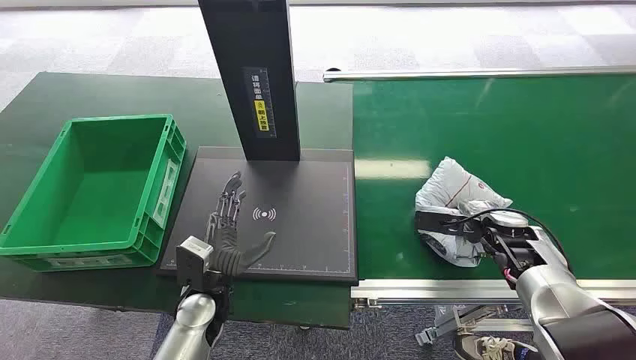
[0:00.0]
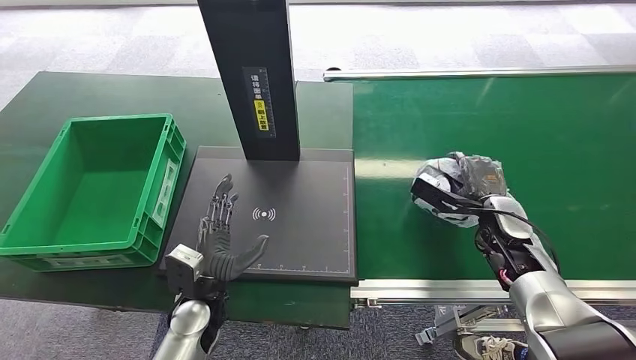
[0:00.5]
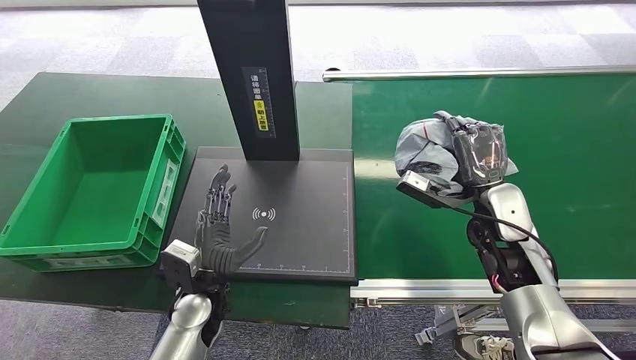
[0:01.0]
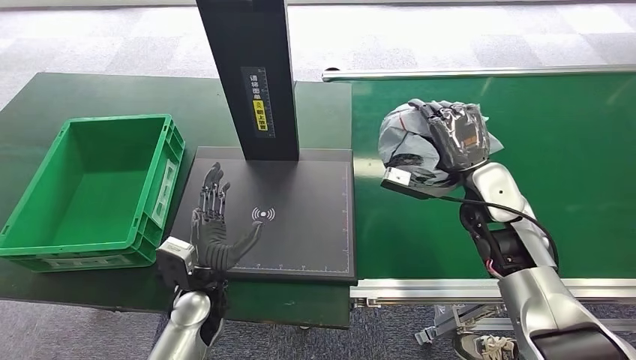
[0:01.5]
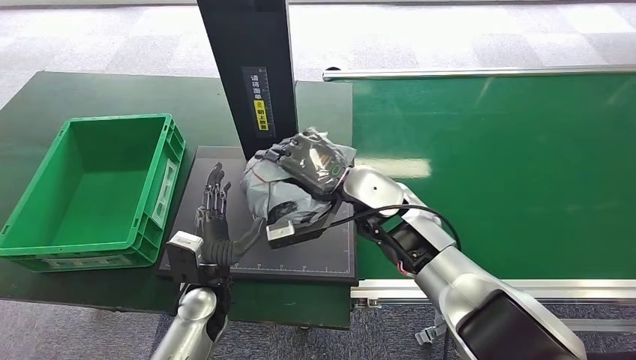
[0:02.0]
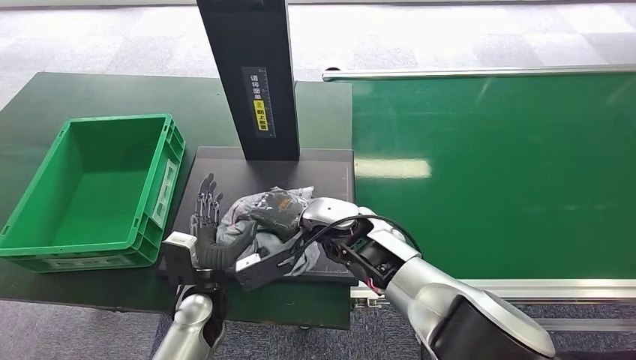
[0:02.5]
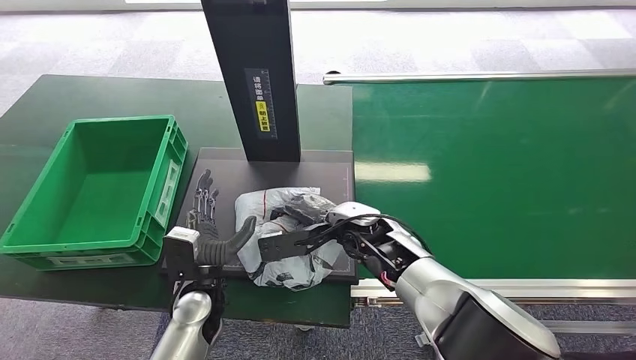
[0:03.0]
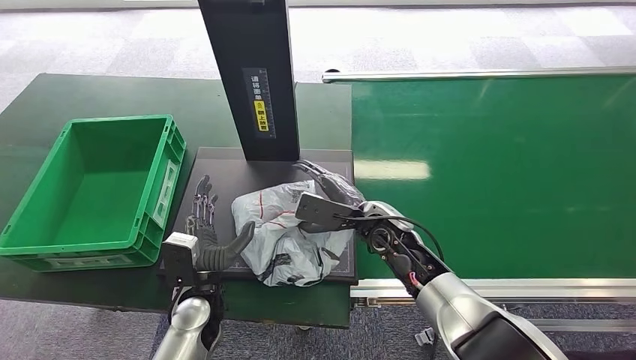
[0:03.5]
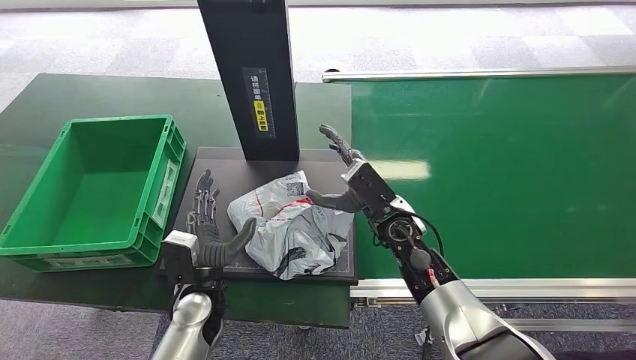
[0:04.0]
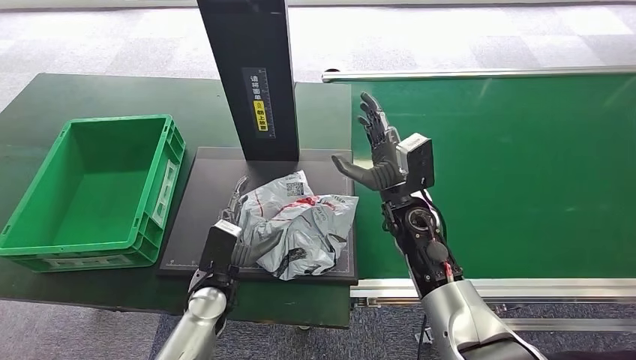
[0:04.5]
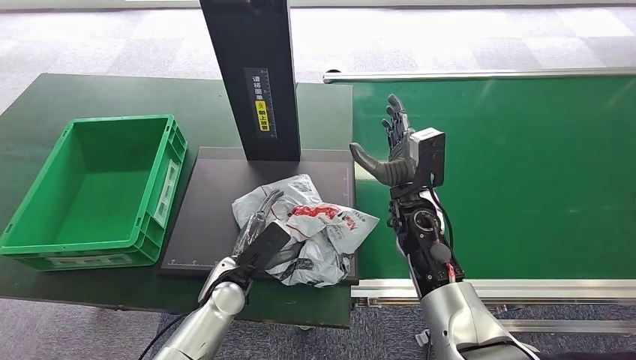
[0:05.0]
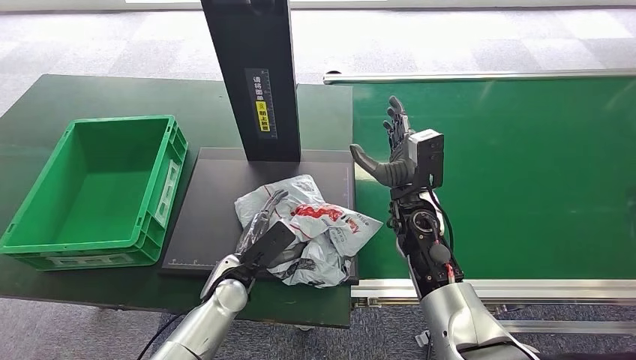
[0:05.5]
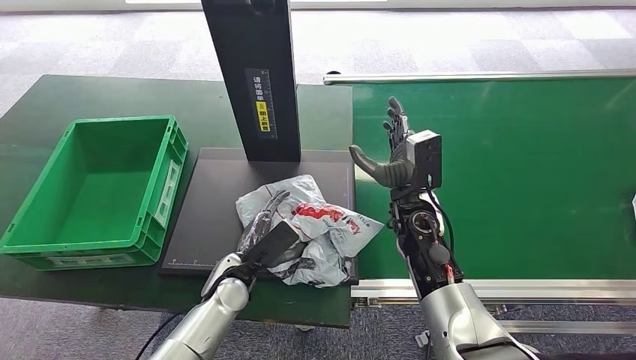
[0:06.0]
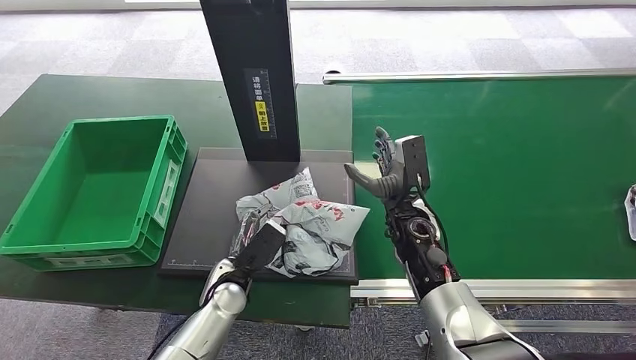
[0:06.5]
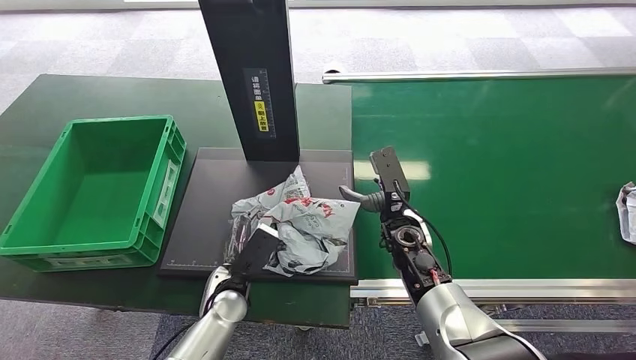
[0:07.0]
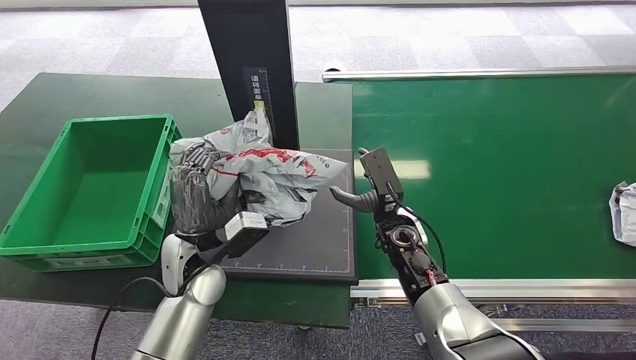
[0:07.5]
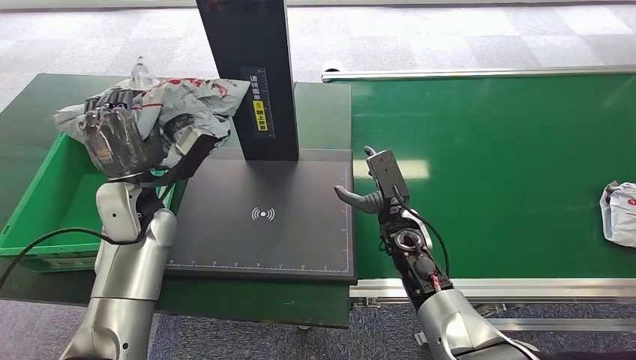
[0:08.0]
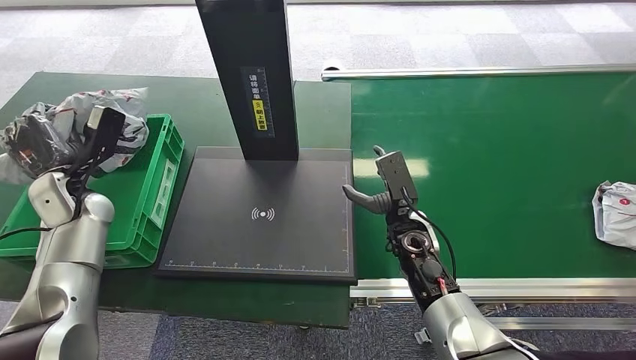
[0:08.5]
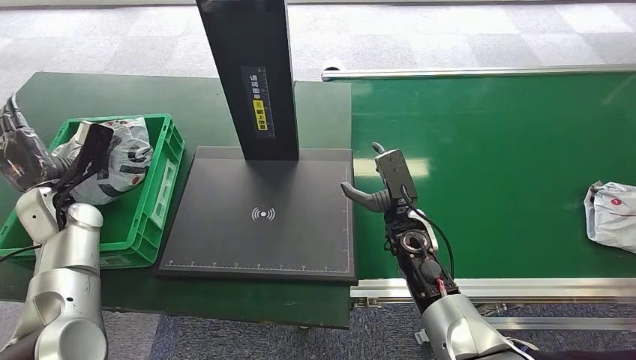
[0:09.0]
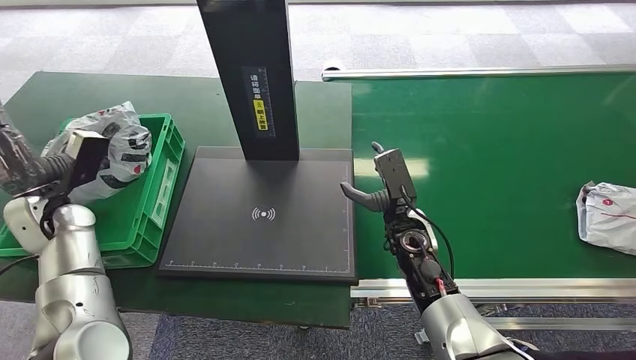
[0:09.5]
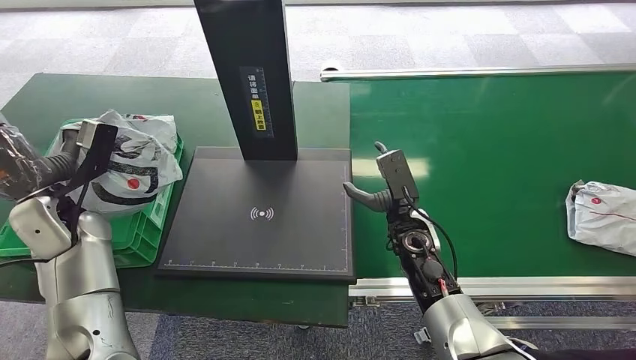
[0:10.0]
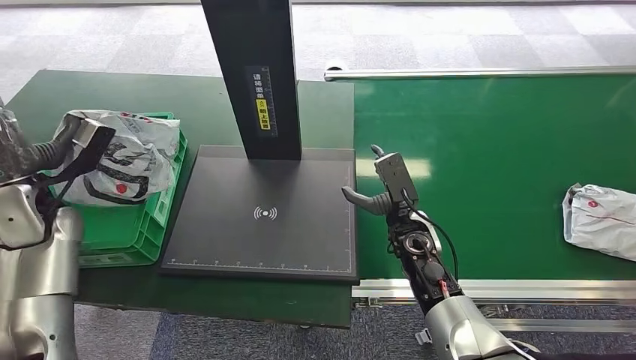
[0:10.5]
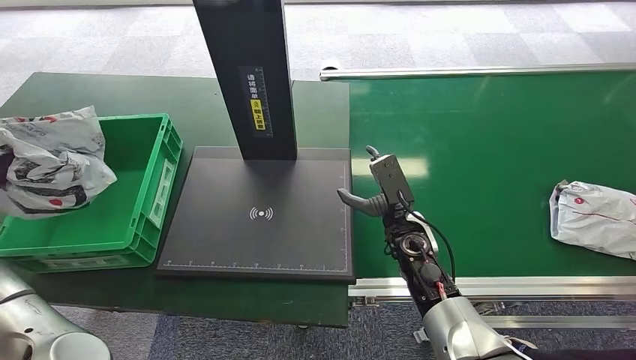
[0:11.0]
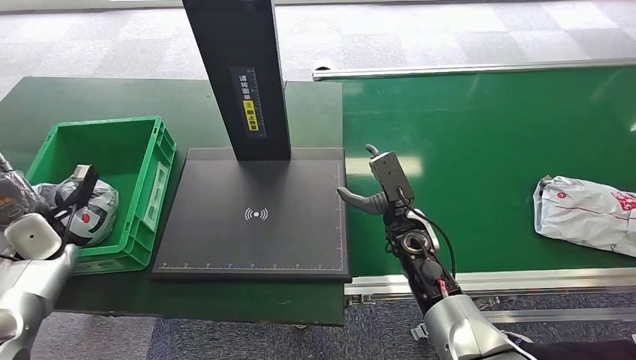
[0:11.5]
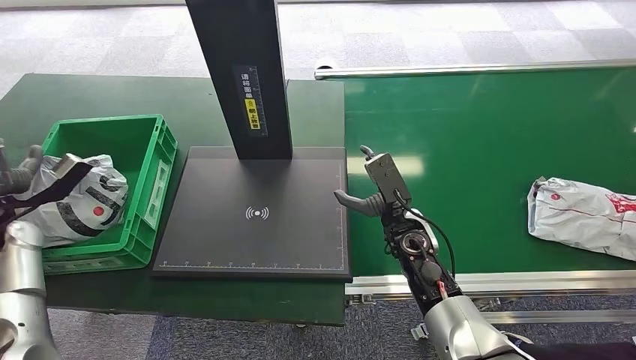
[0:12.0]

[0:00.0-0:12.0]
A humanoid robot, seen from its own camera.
Step, 0:00.0 to 0:01.0: Pick up the package from the conveyor belt.
Step, 0:01.5 to 0:04.0: Place the package onto the inbound machine.
Step, 0:05.0 to 0:07.5: Pick up the package from the inbound machine.
Step, 0:08.0 to 0:12.0: Place the package into the parcel locker.
0:02.0 to 0:04.0: The right hand goes about 10 cm downward.

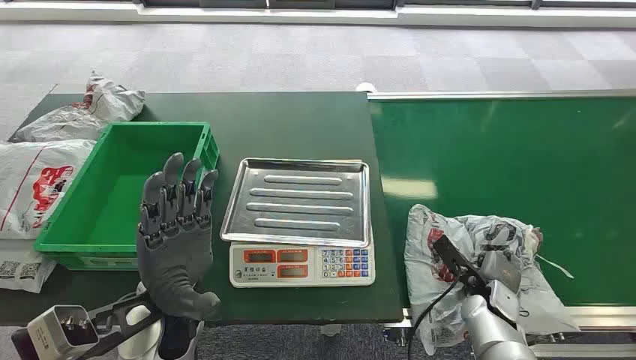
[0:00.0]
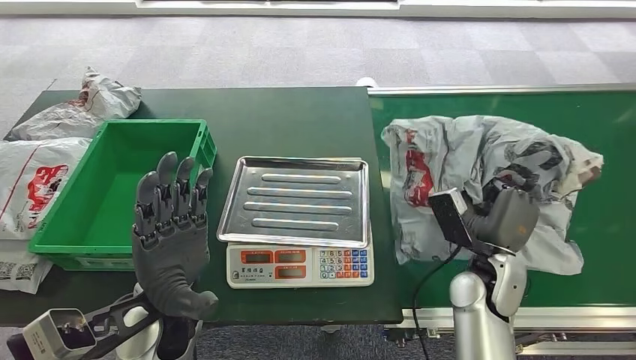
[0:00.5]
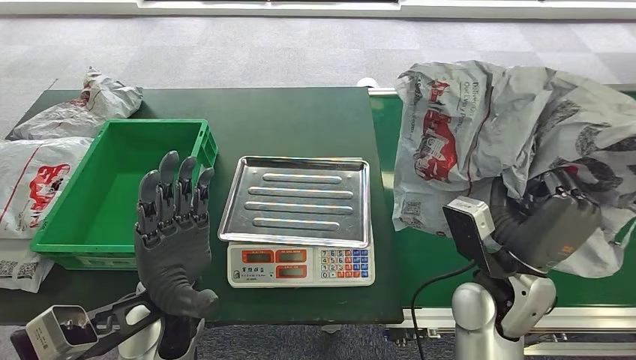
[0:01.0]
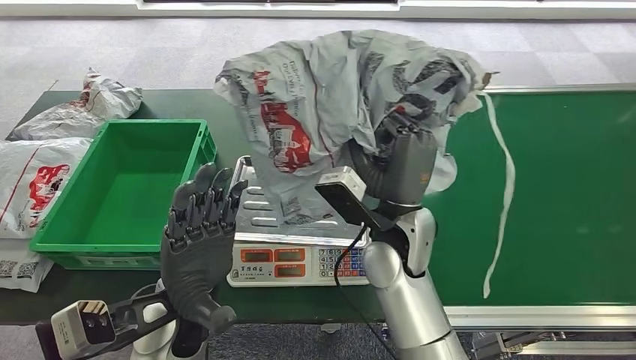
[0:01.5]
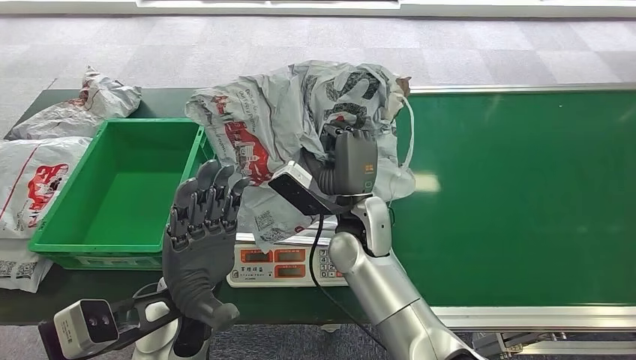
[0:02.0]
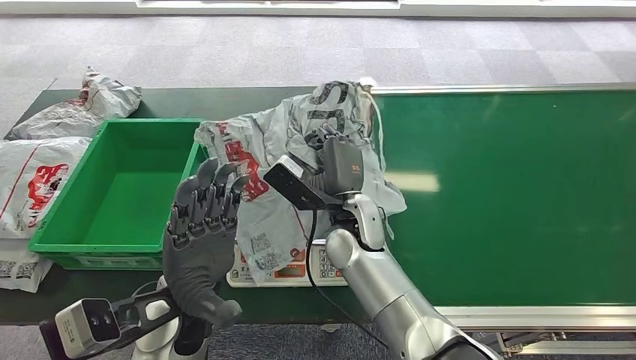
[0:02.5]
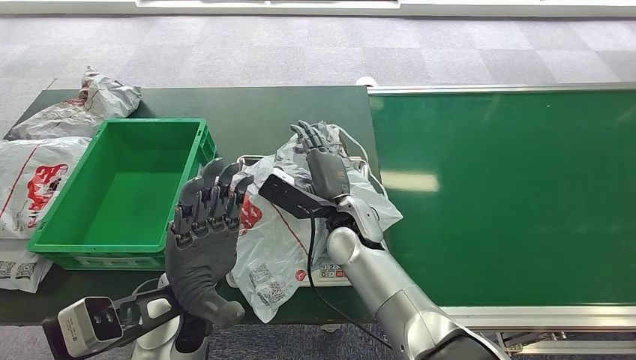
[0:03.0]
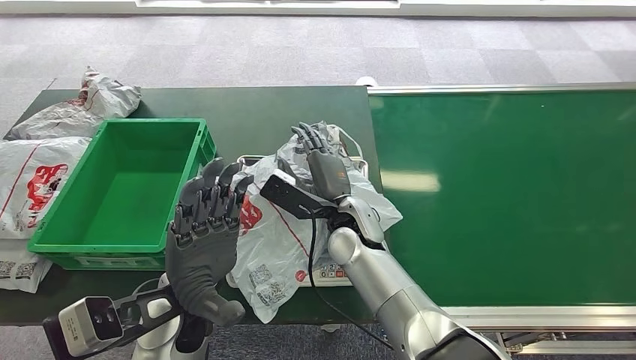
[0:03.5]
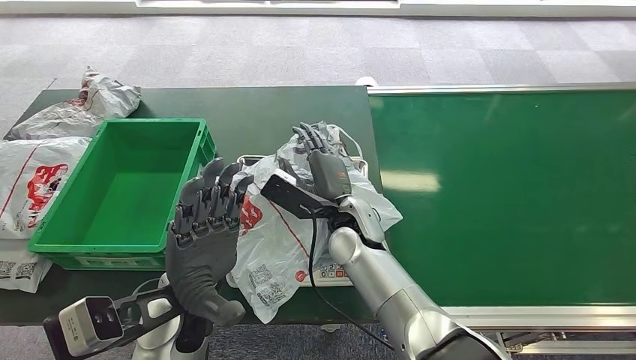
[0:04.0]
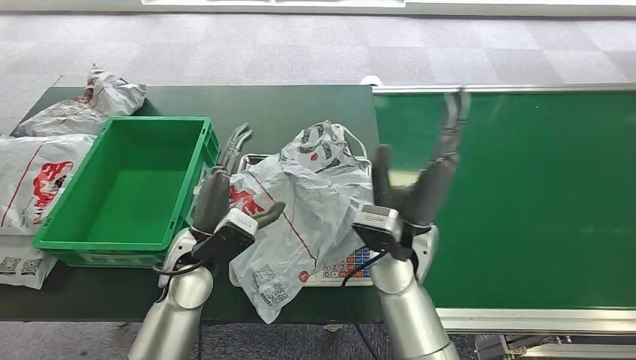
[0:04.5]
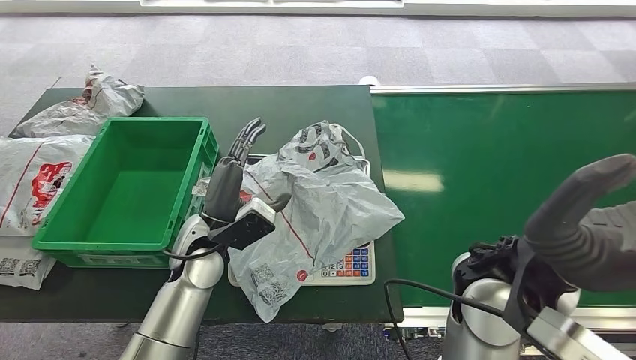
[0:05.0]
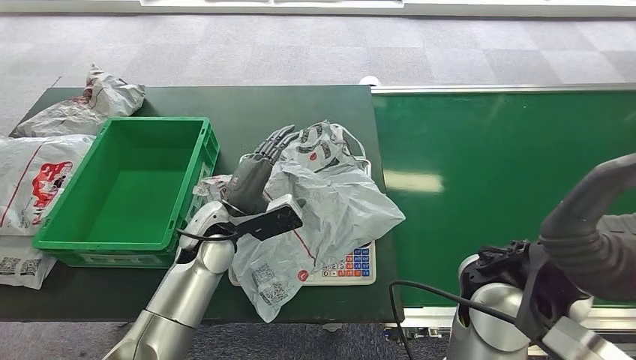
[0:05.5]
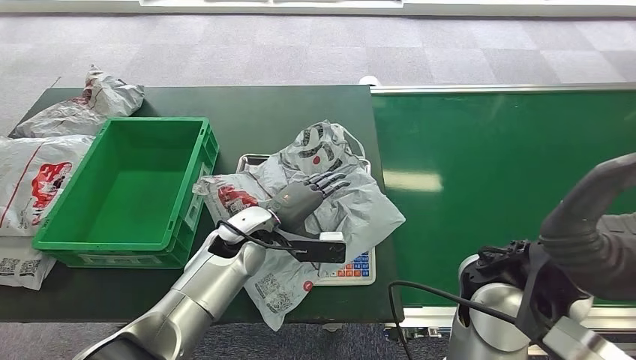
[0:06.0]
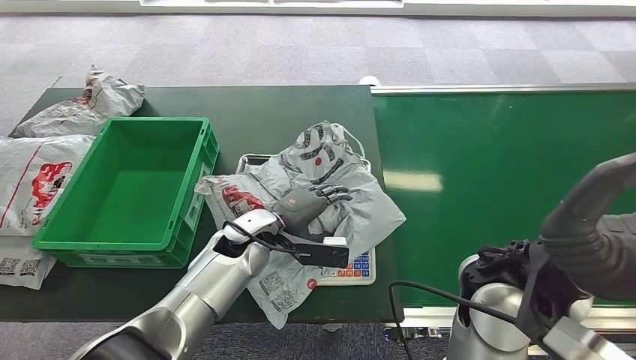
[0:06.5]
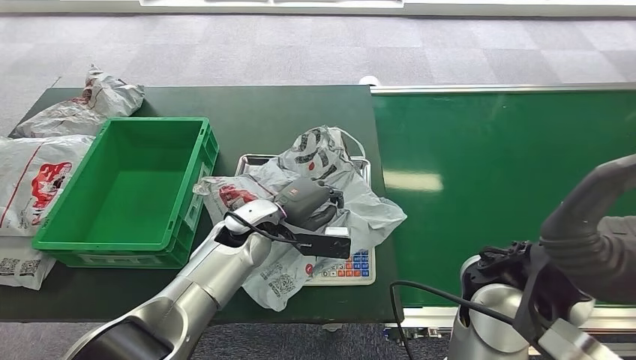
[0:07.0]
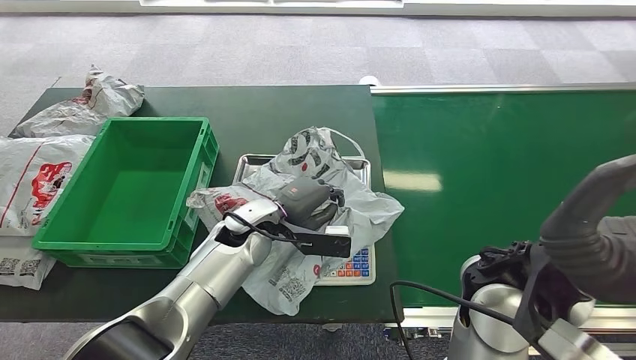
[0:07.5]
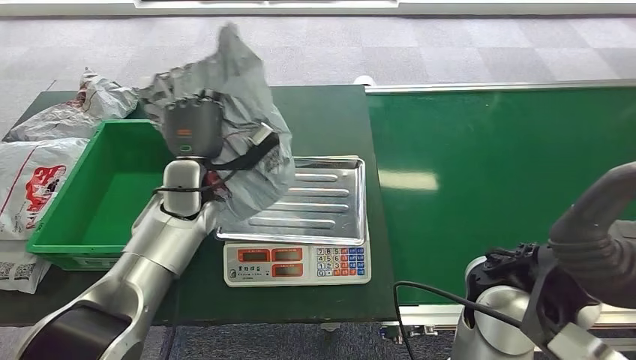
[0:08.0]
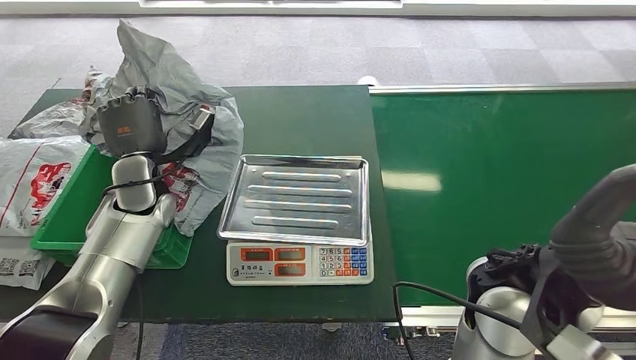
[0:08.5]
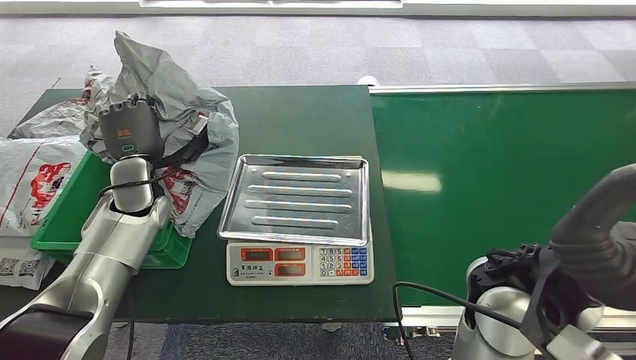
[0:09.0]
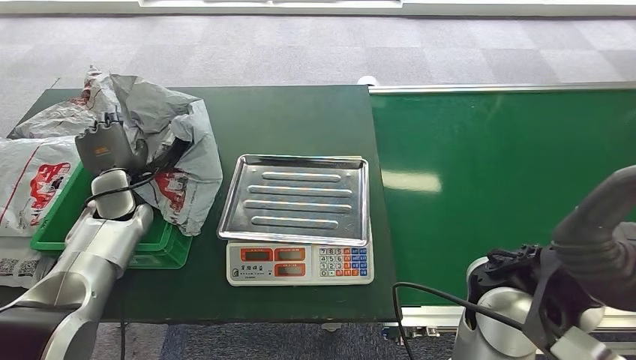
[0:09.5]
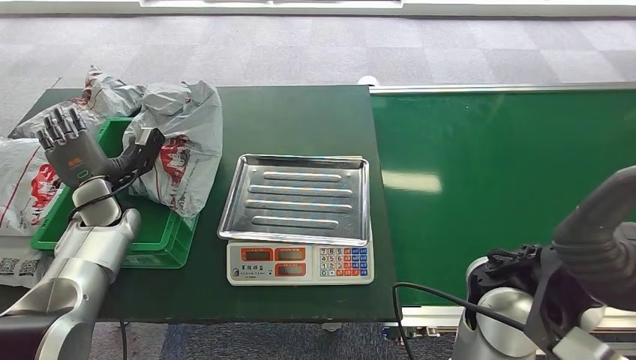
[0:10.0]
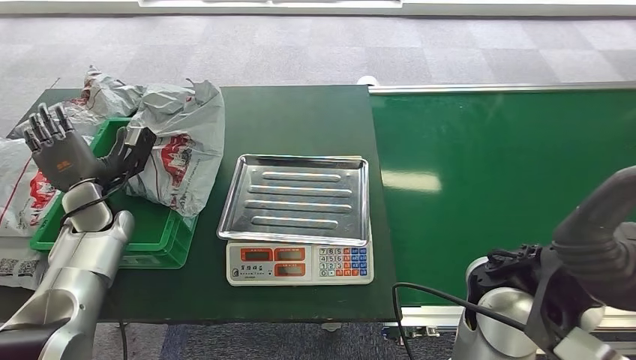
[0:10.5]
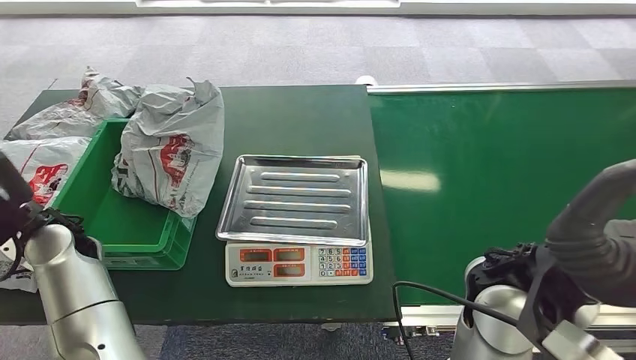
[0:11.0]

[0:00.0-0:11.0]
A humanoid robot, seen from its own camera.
Step, 0:00.0 to 0:01.0: Pick up the package from the conveyor belt.
Step, 0:01.5 to 0:04.0: Place the package onto the inbound machine.
Step, 0:04.5 to 0:08.5: Pick up the package from the inbound machine.
Step, 0:09.0 to 0:11.0: Place the package into the parcel locker.
0:05.5 to 0:07.5: The left hand heads to the right, covering some 5 cm.
